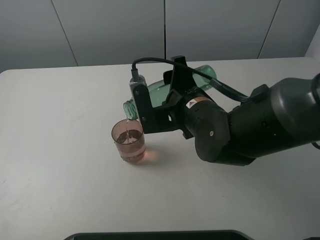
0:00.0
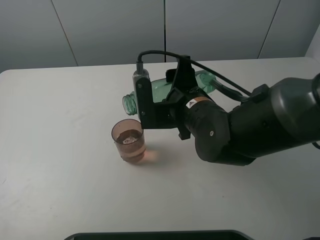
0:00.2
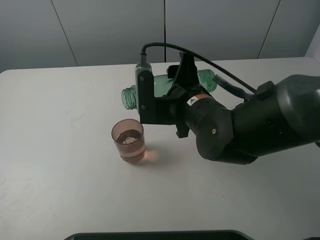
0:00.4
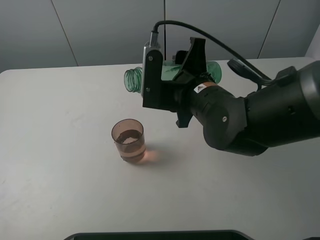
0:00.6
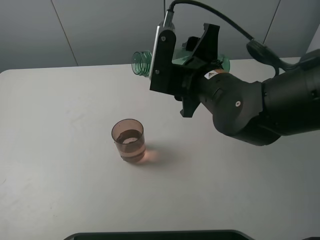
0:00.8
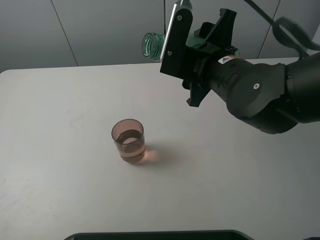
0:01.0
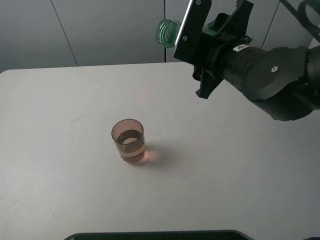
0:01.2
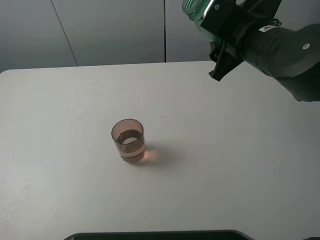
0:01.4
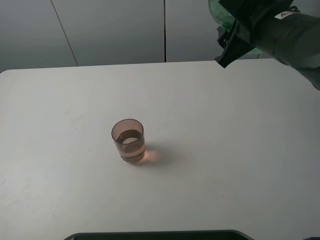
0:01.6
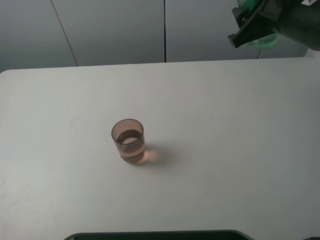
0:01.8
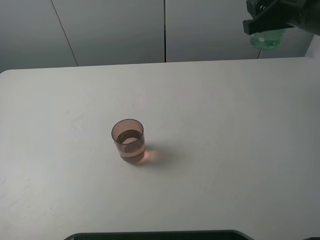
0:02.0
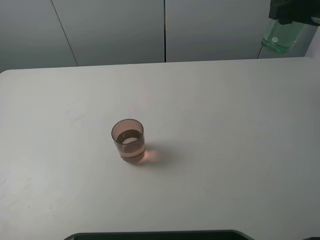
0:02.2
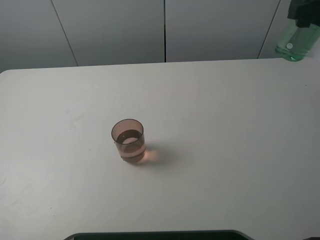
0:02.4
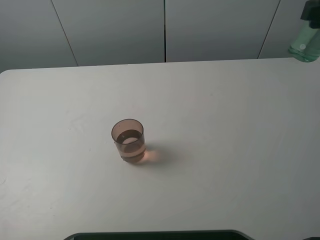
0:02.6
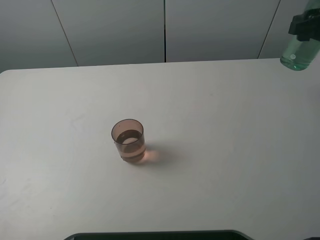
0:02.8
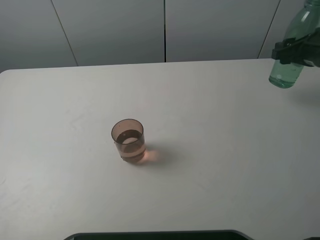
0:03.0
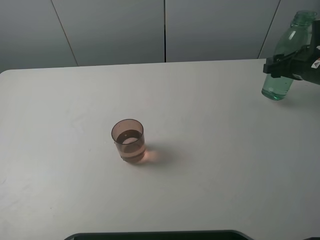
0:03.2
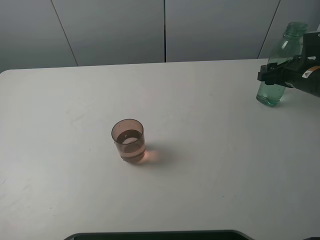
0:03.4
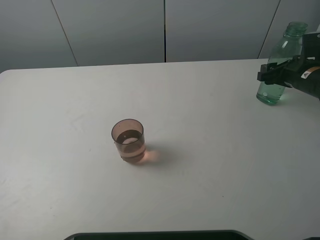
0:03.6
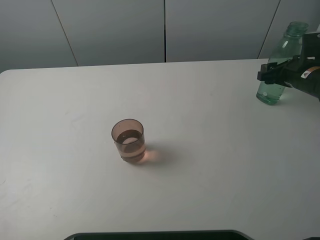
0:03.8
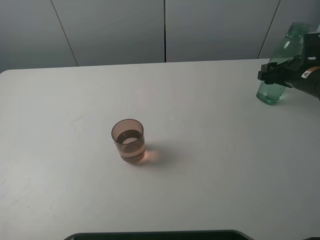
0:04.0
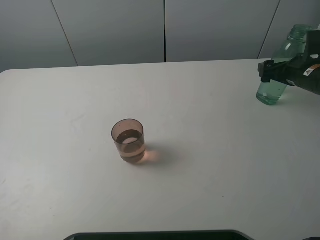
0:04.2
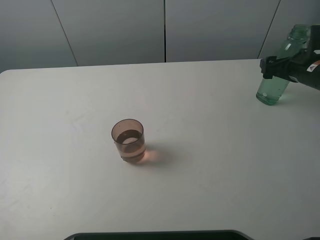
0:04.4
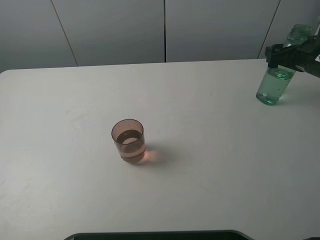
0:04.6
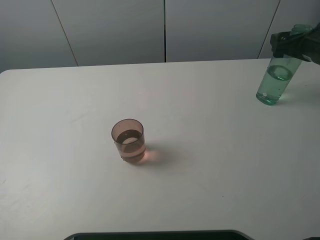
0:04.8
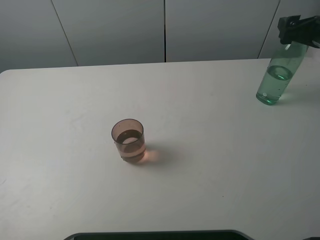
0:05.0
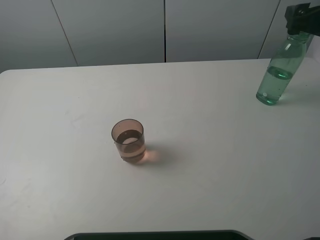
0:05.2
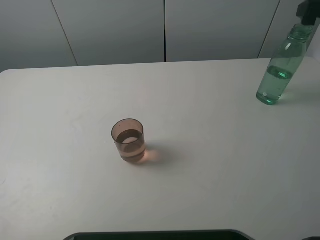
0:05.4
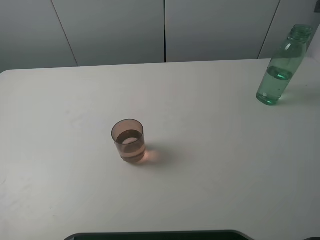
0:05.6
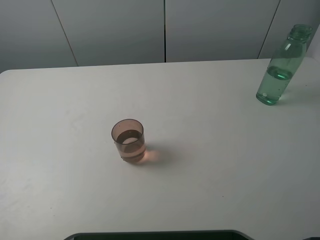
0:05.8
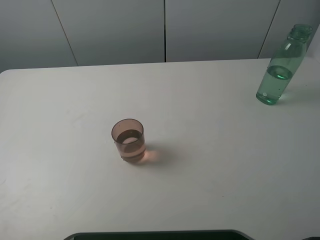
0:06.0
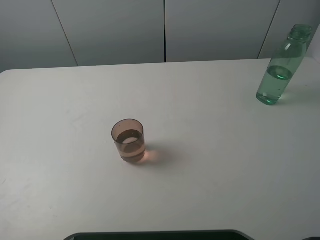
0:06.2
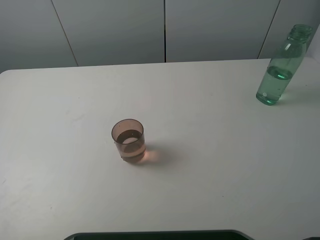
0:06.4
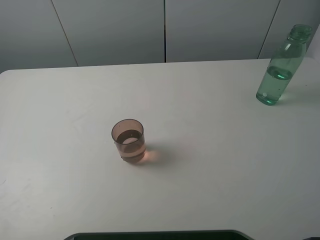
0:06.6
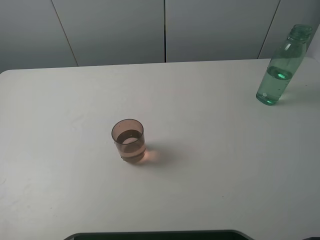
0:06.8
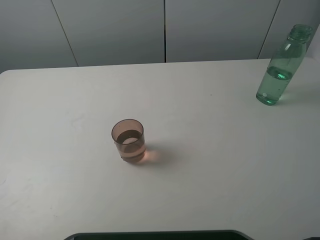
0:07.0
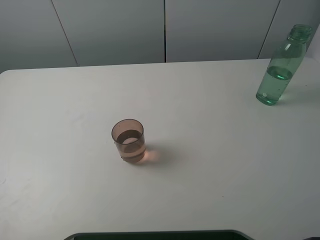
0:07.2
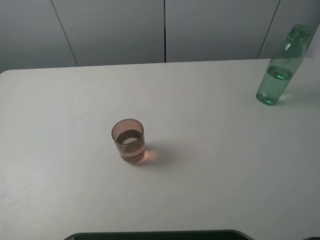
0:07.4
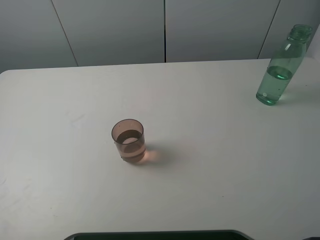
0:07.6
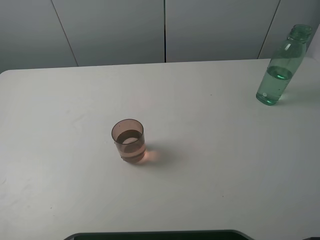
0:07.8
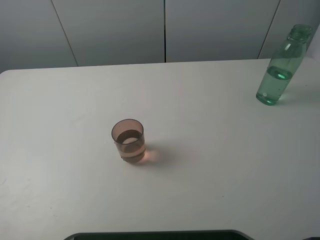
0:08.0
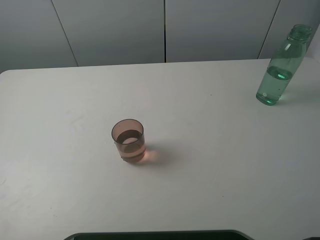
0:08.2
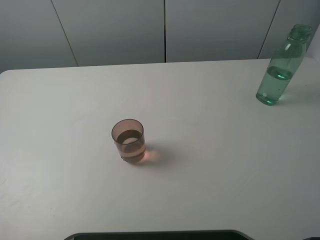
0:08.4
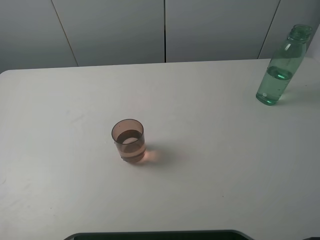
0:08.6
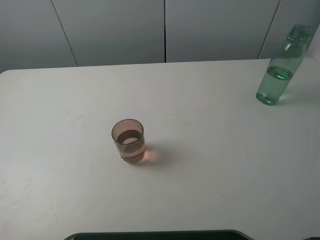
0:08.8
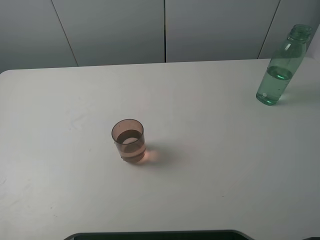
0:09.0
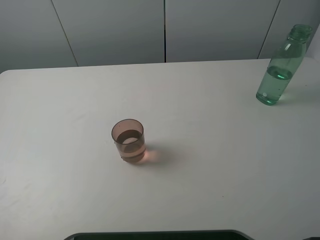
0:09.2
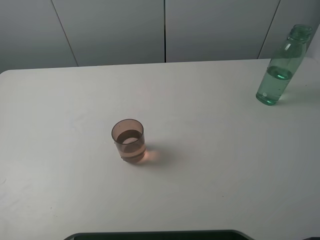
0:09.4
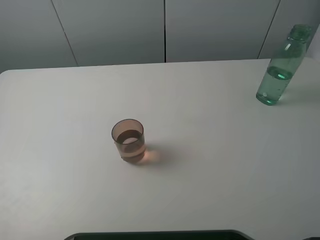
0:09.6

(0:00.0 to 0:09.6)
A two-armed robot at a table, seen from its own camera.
Task of the whole recording: pick up the bottle filled with water and pour it into the pink cup.
Step, 0:00.8 - 0:04.8: Place the green bottle with the right gripper.
0:00.0 - 0:01.6: The right gripper goes about 15 cm upward, to the right and forward.
0:01.6 - 0:03.2: The right gripper heads to the right and downward, covering approximately 20 cm.
0:03.2 - 0:04.8: The right gripper opens up.
0:04.8 - 0:06.4: The right gripper goes about 30 cm backward and upward.
0:08.0 - 0:09.6: Neither gripper changes place.

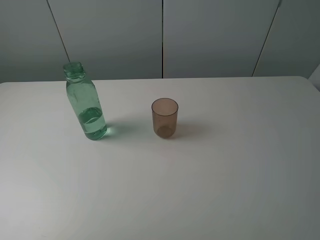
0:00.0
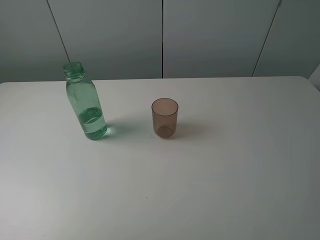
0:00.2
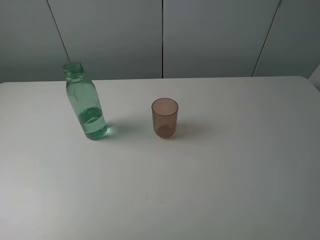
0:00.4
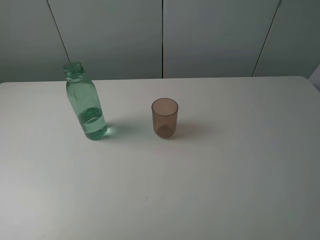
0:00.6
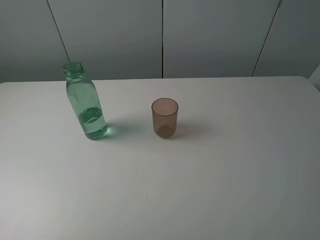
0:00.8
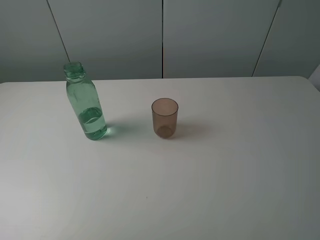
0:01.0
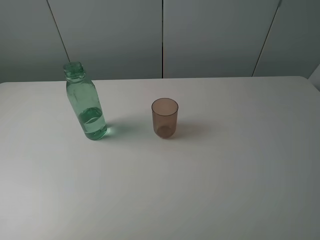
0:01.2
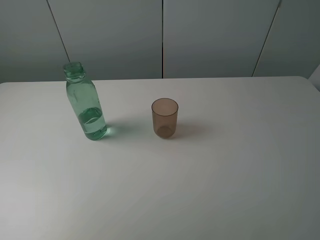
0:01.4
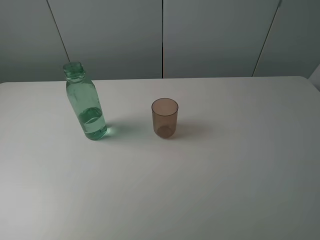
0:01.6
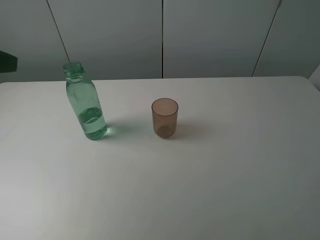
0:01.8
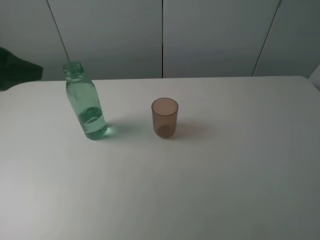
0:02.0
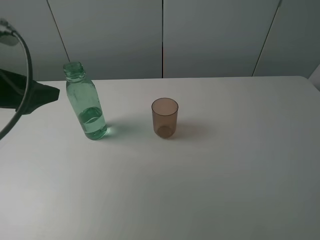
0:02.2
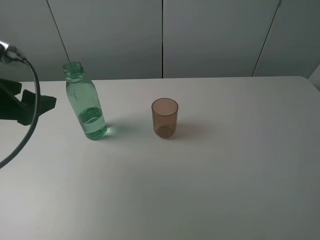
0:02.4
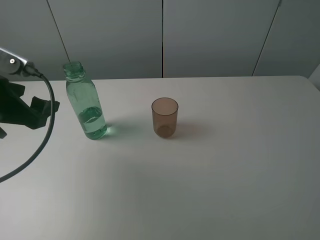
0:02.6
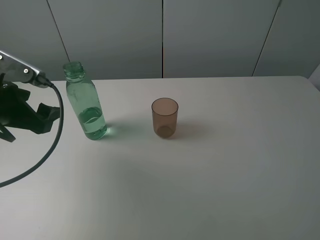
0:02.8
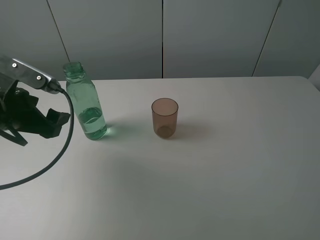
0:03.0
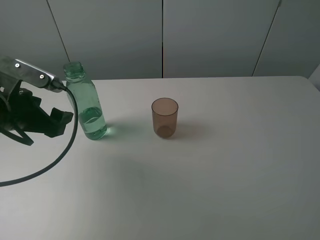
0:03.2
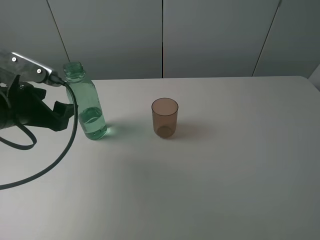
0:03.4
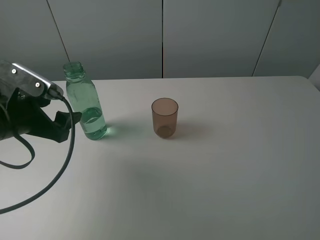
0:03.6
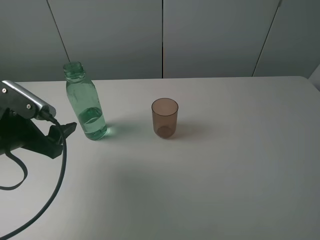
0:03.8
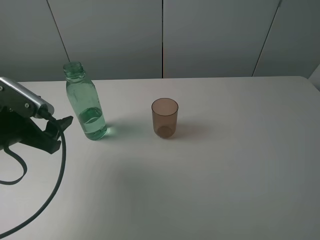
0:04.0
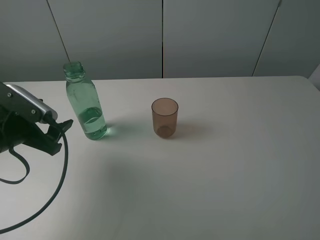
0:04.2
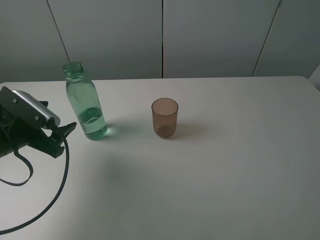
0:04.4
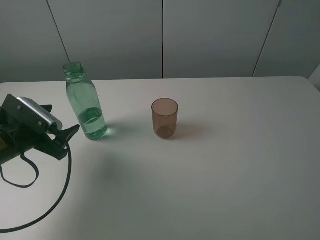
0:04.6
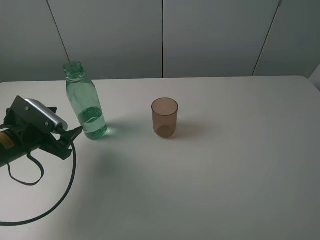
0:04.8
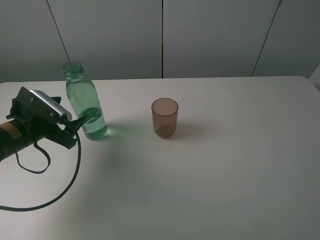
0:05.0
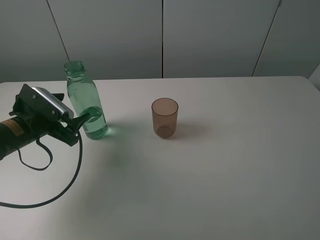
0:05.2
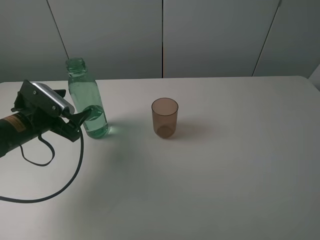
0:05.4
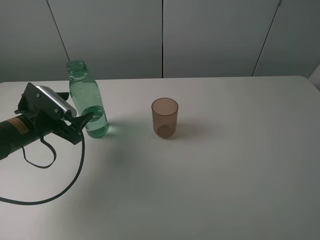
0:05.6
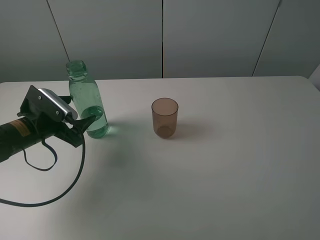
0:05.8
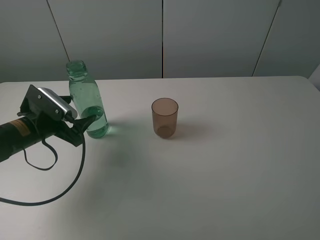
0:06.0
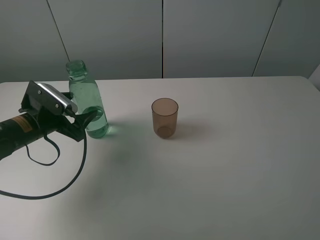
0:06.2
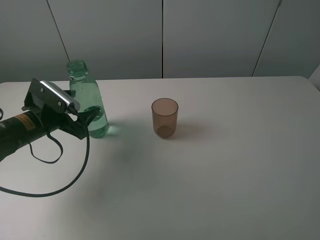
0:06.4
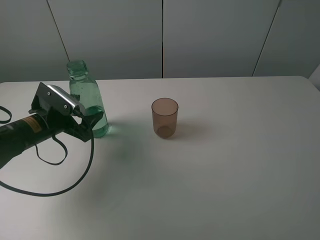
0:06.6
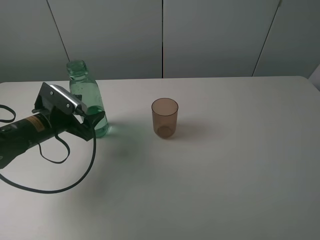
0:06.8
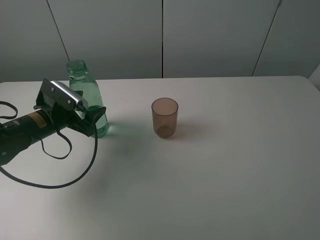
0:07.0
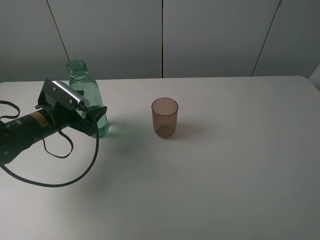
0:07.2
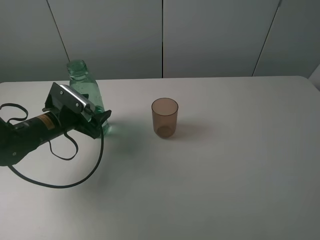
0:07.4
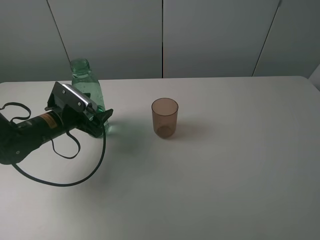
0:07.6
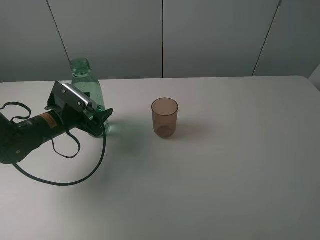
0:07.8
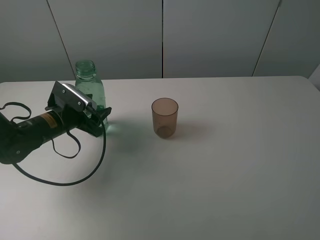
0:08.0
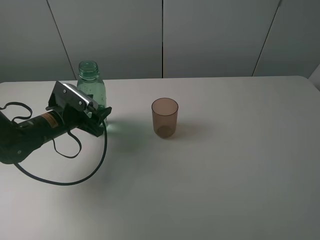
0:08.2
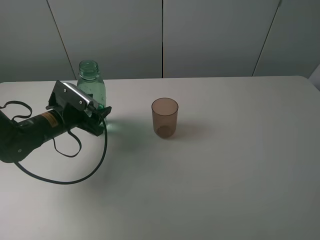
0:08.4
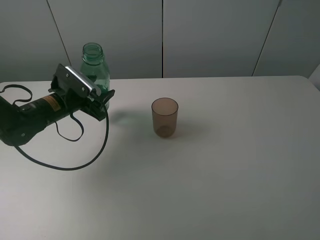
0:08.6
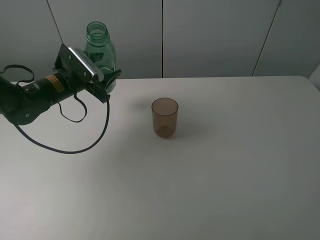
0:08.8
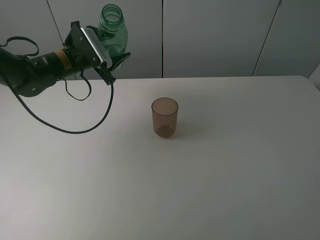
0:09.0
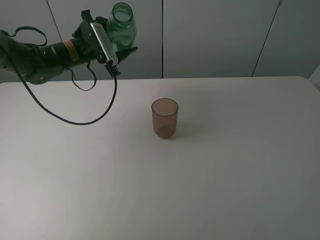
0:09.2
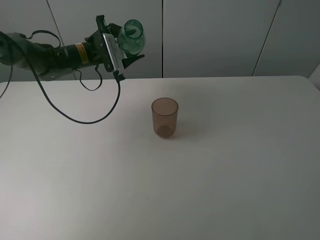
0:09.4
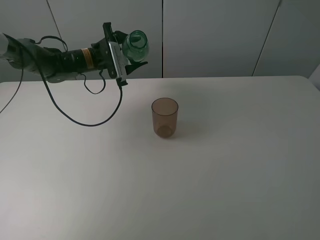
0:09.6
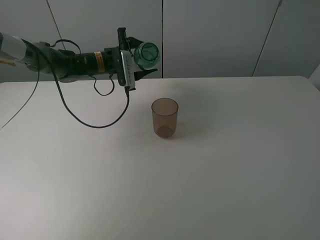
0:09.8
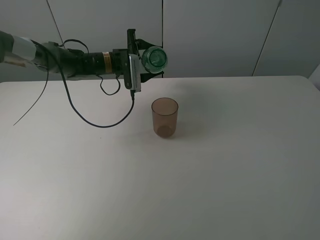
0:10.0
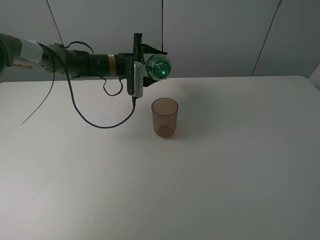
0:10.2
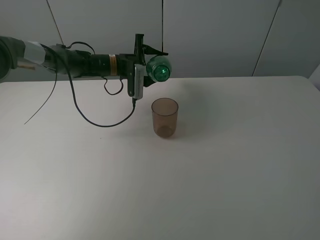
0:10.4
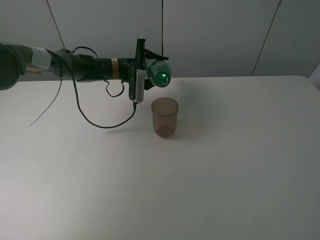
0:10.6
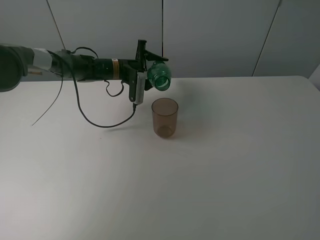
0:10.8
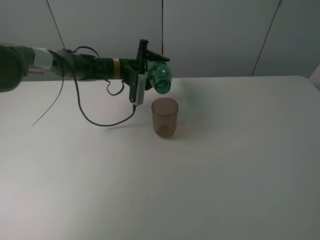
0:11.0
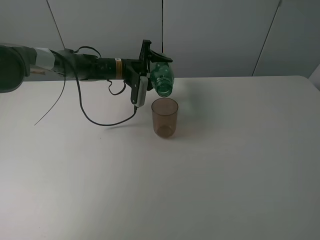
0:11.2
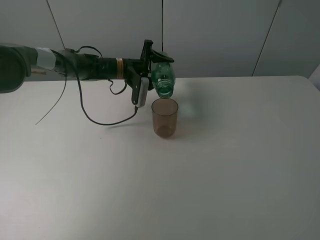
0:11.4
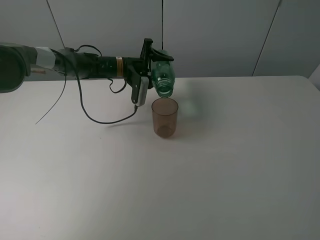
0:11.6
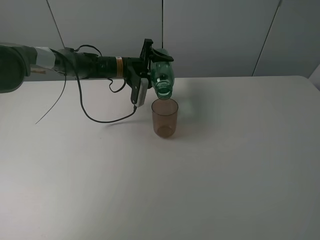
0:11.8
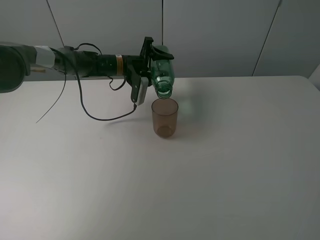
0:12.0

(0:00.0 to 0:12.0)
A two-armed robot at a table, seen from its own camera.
Task of the whole recording: pick up the bottle filled with water and pour it into the pink cup.
Step, 0:00.0 - 0:08.0: Grasp the green bottle with the left gripper.
0:01.6 - 0:03.0: The left gripper travels downward and forward by some 20 cm.
0:03.0 - 0:04.4: The left gripper shifts roughly 5 cm downward.
0:04.4 - 0:06.0: The left gripper ends up approximately 5 cm from where it was.
0:06.0 - 0:07.6: The left gripper ends up approximately 5 cm from where it was.
0:07.6 - 0:09.0: The left gripper goes roughly 15 cm forward and upward, and closes its fingers.
0:09.0 - 0:10.4: The left gripper travels to the right, forward and downward by roughly 15 cm.

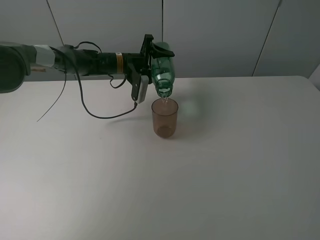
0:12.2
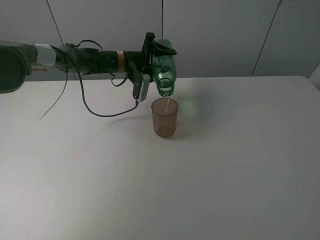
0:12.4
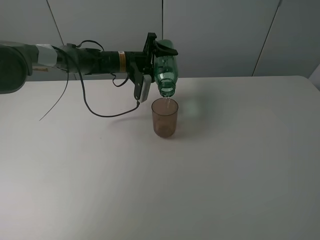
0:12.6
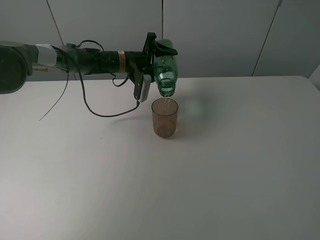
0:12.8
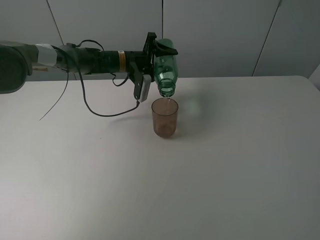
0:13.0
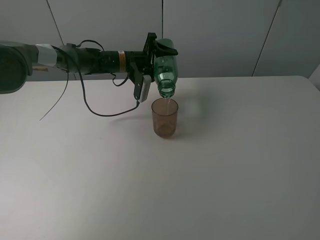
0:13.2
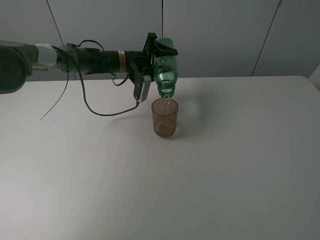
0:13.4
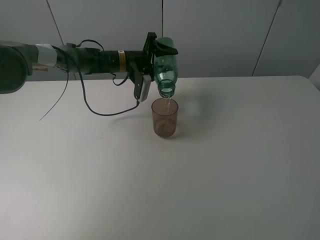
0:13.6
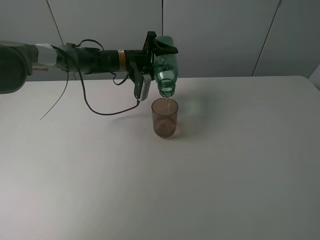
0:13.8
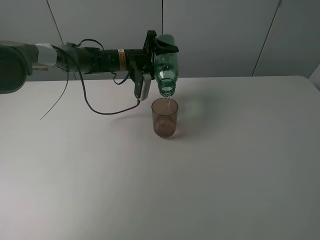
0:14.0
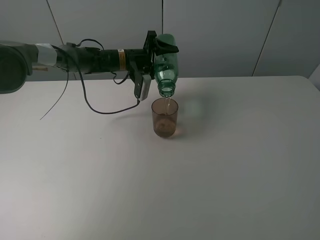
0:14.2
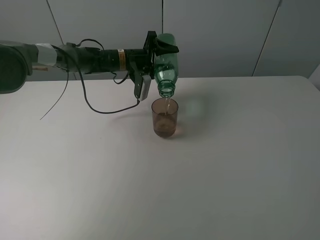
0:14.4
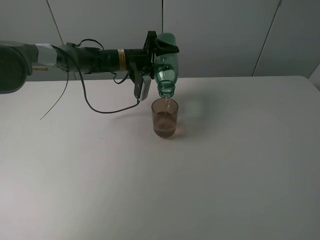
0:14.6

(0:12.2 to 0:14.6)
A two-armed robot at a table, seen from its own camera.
Task of the whole recording: pick up the bottle filled with water and pour it into the pink cup.
0:12.2 - 0:13.4: Both grippers stay put.
0:13.4 - 0:14.6: The grippers make only small movements.
